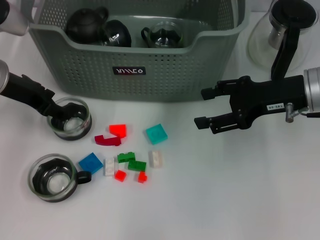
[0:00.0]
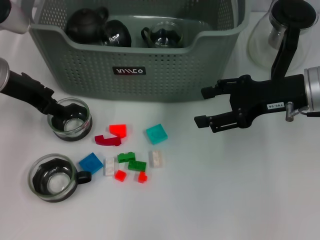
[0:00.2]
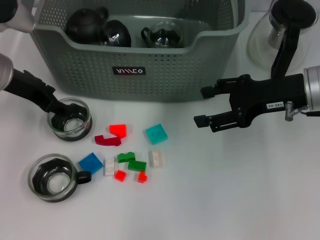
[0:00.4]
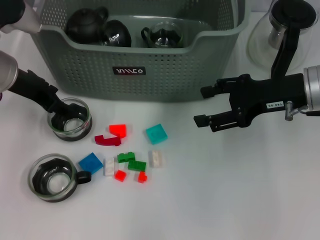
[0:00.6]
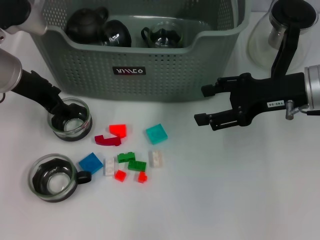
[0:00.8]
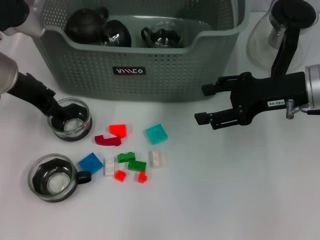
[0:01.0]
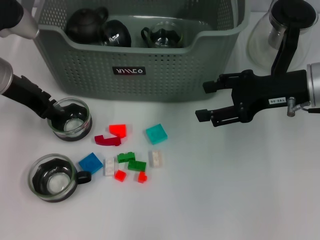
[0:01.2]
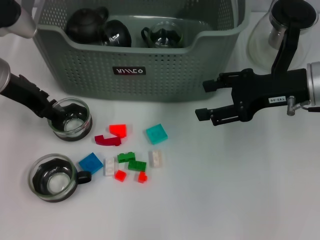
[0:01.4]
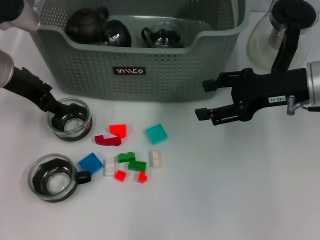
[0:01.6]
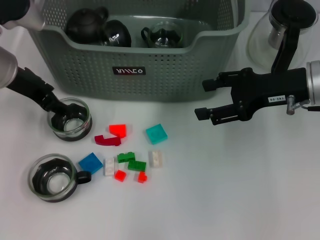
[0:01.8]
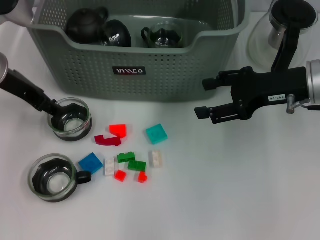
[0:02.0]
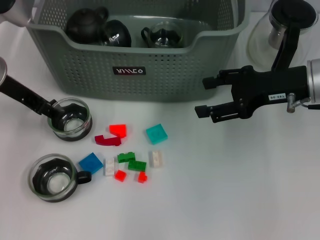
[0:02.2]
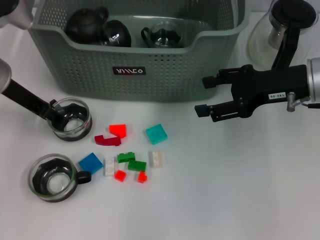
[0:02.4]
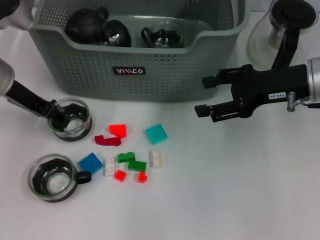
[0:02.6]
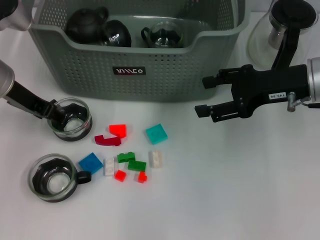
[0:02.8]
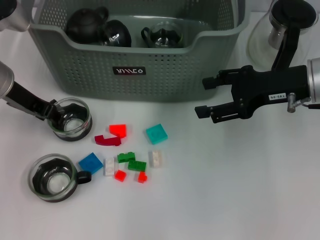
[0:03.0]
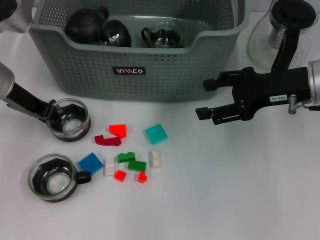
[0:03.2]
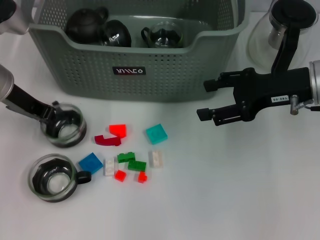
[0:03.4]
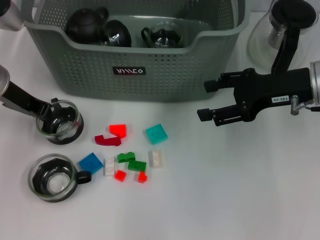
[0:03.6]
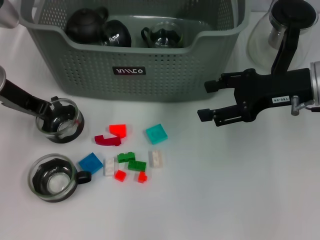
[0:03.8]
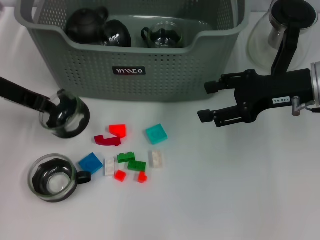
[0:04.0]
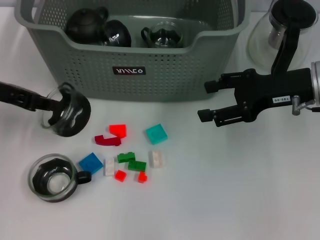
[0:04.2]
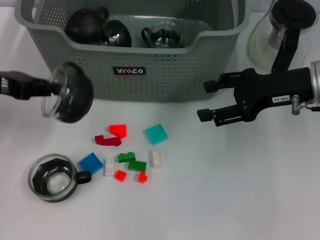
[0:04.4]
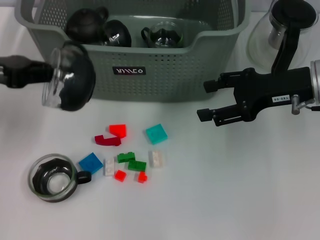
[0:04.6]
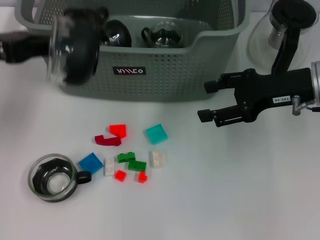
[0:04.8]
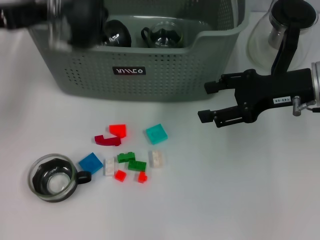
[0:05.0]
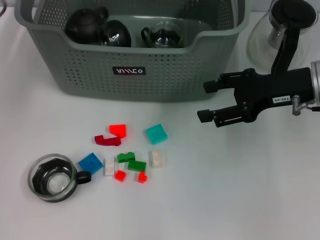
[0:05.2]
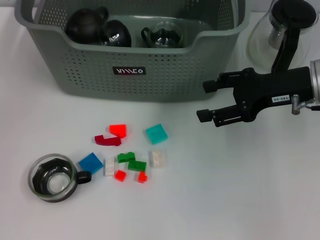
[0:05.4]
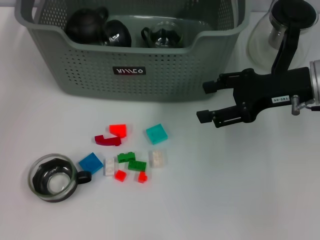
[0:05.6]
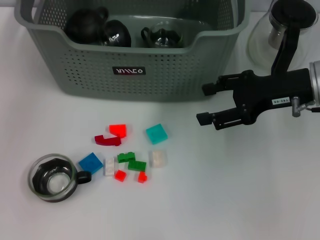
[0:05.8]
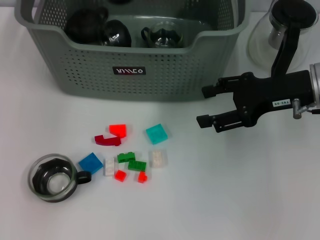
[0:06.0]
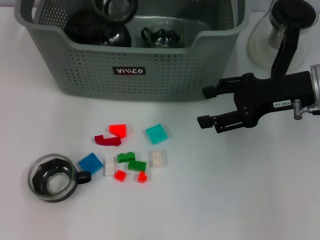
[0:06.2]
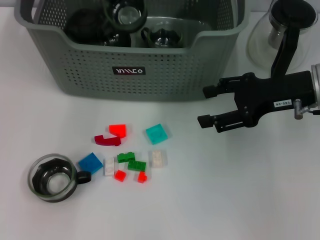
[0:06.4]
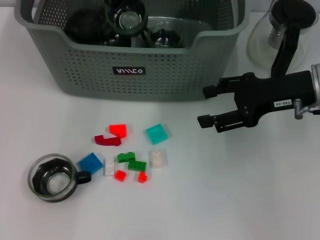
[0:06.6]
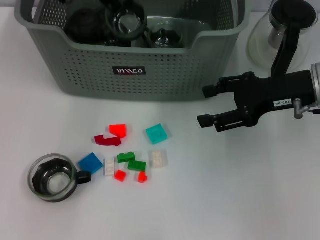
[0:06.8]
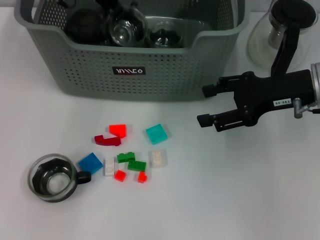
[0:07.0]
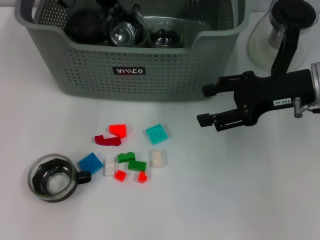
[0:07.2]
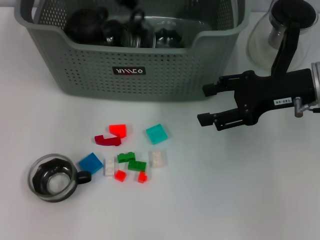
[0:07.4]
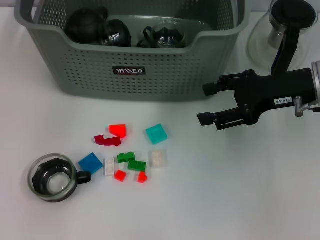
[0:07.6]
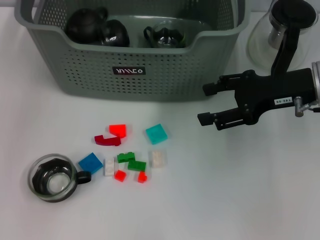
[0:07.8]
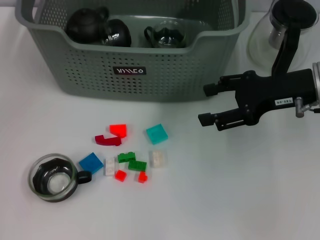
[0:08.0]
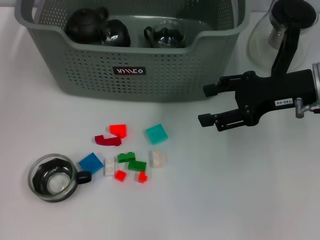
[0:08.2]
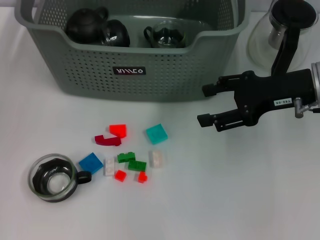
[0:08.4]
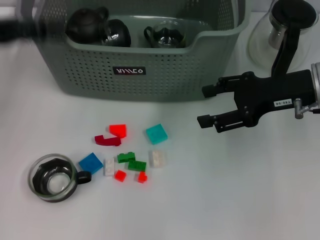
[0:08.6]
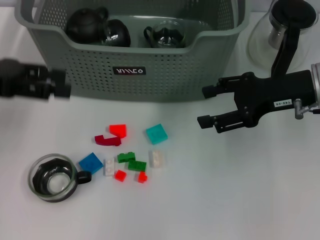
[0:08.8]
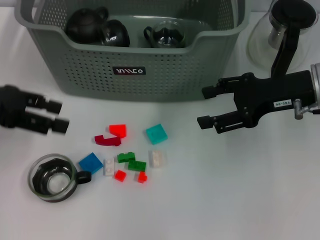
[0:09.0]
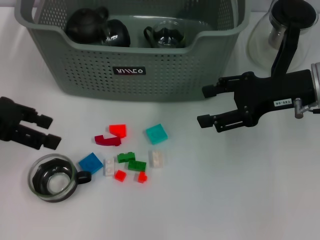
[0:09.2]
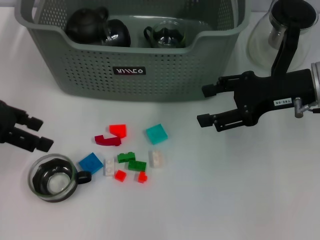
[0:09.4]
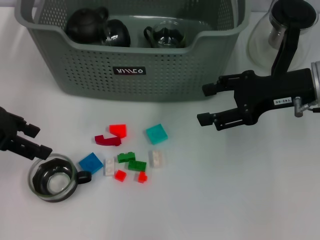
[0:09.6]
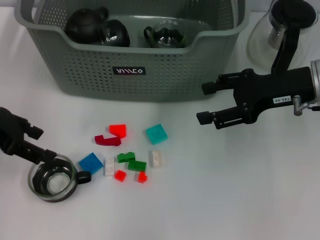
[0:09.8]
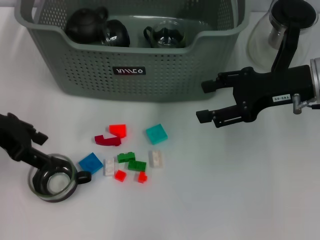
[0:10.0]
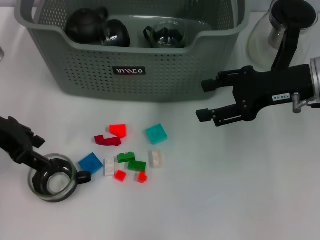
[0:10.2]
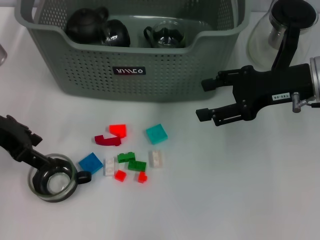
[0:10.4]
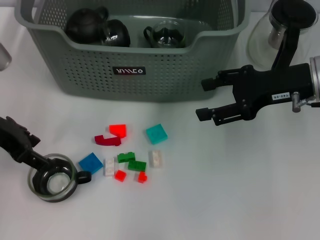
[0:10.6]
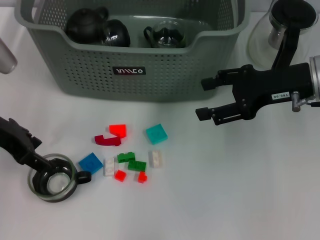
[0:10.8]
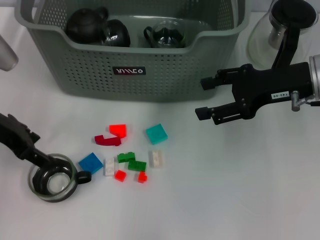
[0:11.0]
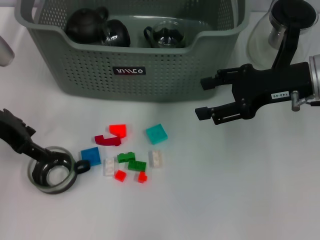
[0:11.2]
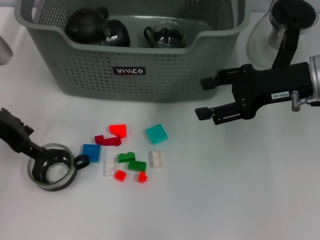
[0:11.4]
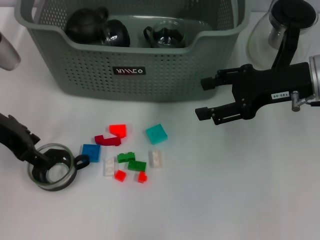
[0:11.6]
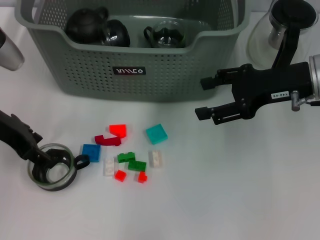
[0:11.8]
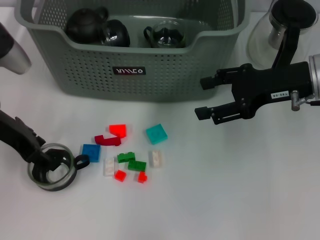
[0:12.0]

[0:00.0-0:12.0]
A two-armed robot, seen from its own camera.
Task of the whole recording: pick up the teacup on the table and place it into the storage bin, pick up the block on the table and place it into the storage bin.
Step, 0:00.0 to 0:03.2: Grasp the cup with left gripper.
Step, 0:03.4 to 0:07.4: Place the cup in the storage box with left gripper.
0:00.0 to 0:01.6: The grippers move only a little.
0:03.0 to 0:04.4: The left gripper goes about 5 cm to the left, and closes its fingers.
0:04.4 to 0:06.0: The left gripper heads forward, to the right and upward, covering approximately 25 cm.
0:06.0 to 0:07.6: The left gripper opens its fingers.
0:07.6 to 0:09.0: The left gripper heads backward, to the left and downward, covering roughly 25 cm.
0:10.4 to 0:12.0: The grippers stay close to where they were, moving slightly.

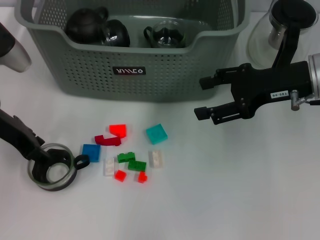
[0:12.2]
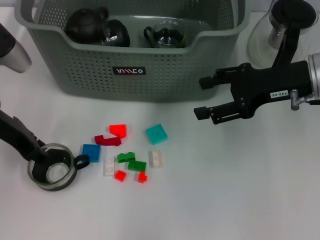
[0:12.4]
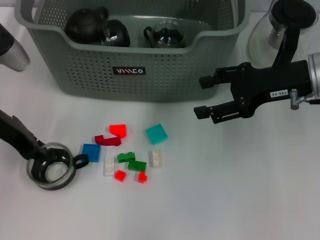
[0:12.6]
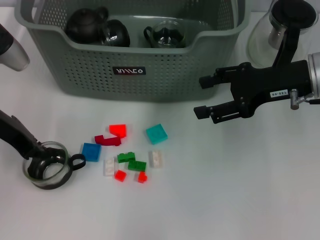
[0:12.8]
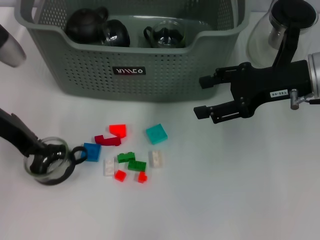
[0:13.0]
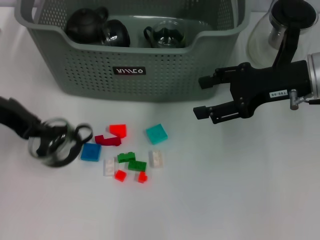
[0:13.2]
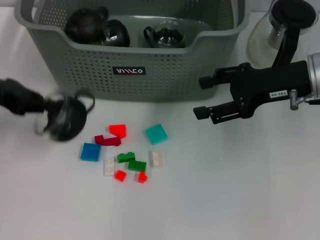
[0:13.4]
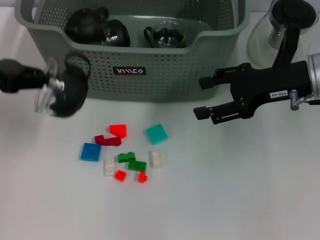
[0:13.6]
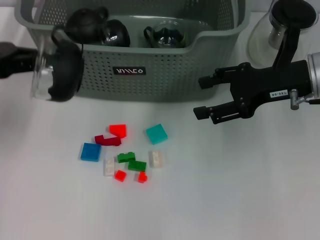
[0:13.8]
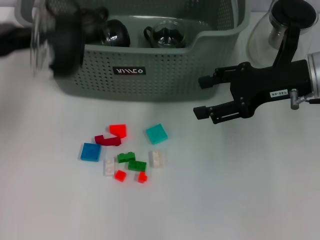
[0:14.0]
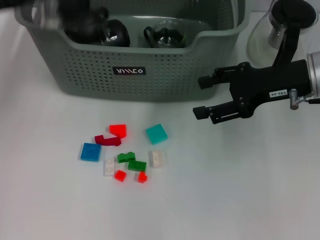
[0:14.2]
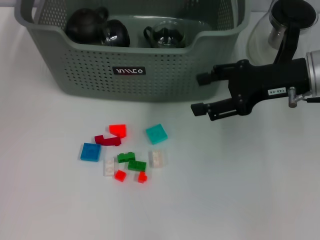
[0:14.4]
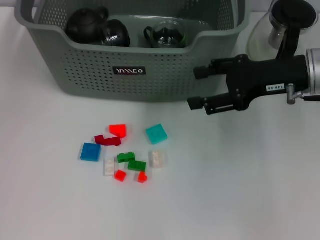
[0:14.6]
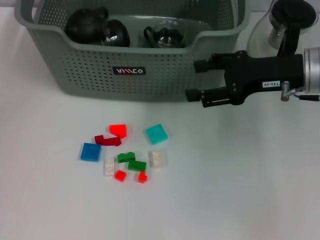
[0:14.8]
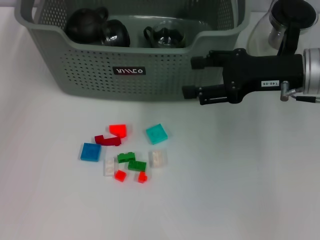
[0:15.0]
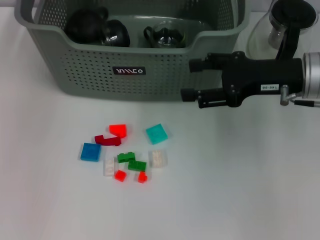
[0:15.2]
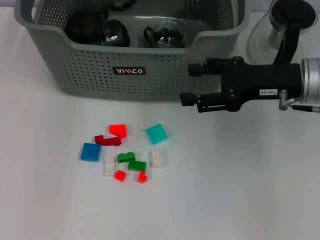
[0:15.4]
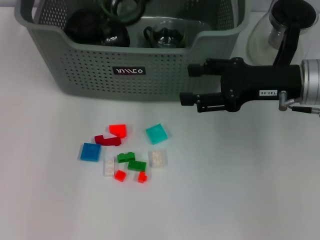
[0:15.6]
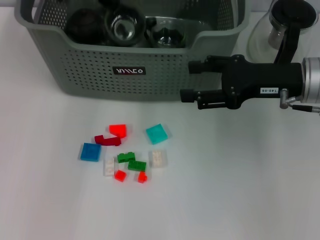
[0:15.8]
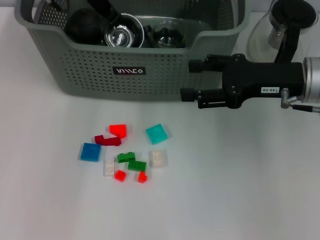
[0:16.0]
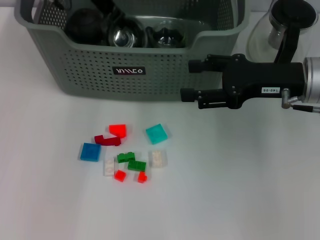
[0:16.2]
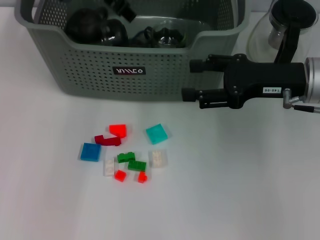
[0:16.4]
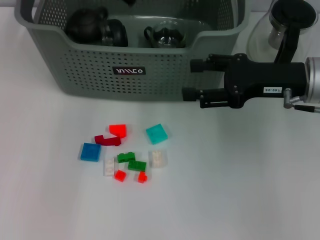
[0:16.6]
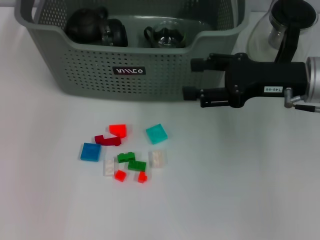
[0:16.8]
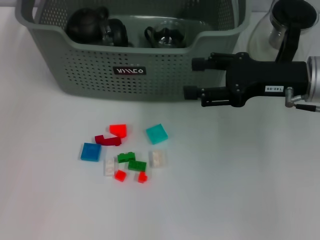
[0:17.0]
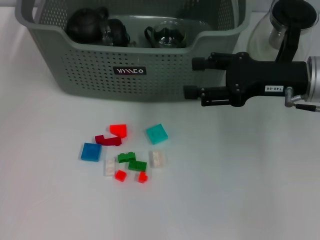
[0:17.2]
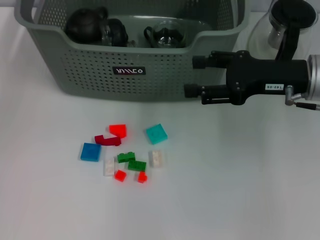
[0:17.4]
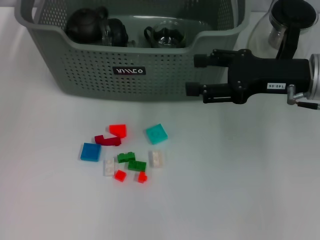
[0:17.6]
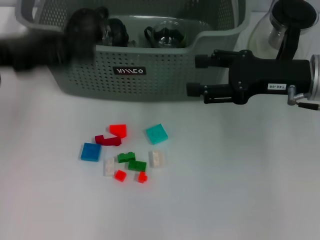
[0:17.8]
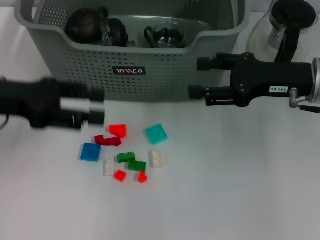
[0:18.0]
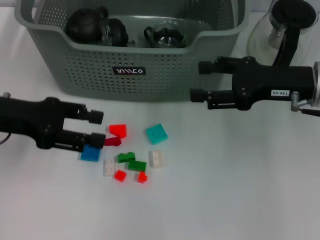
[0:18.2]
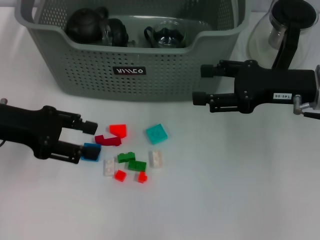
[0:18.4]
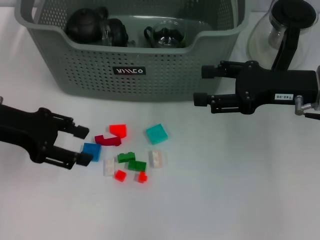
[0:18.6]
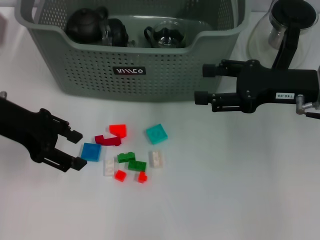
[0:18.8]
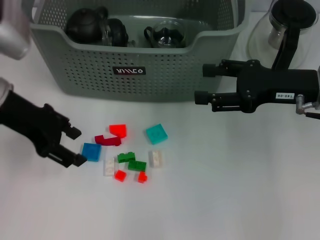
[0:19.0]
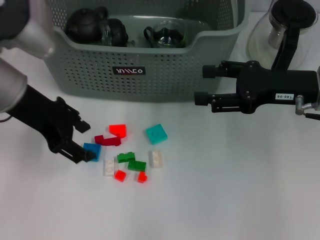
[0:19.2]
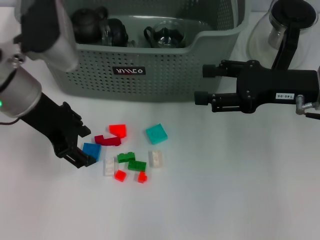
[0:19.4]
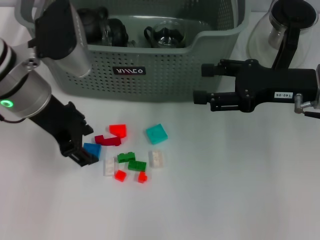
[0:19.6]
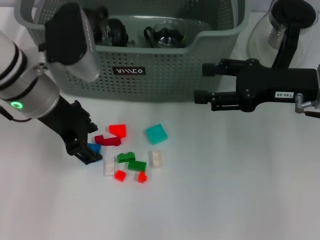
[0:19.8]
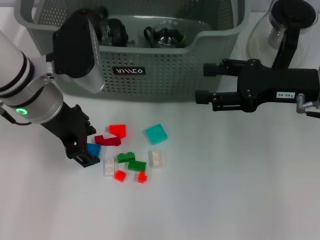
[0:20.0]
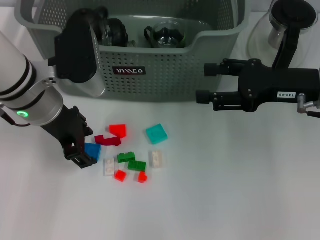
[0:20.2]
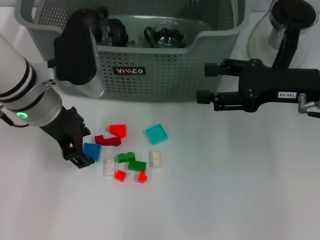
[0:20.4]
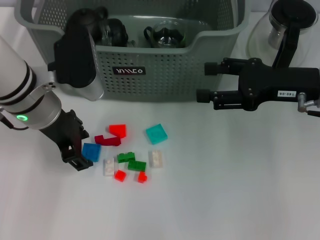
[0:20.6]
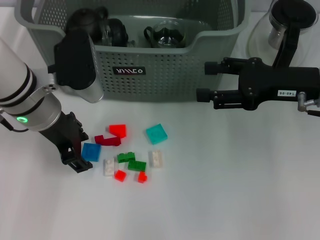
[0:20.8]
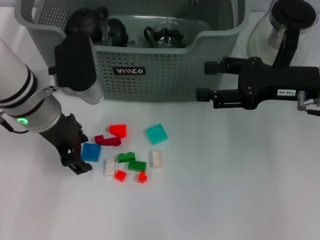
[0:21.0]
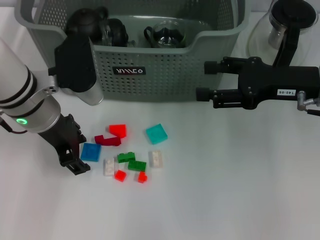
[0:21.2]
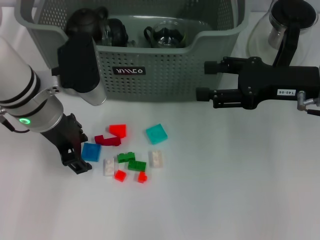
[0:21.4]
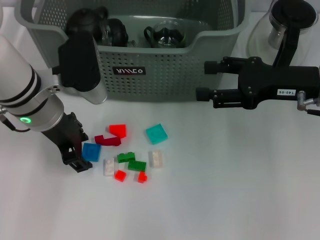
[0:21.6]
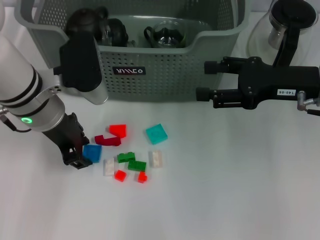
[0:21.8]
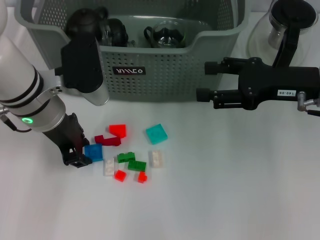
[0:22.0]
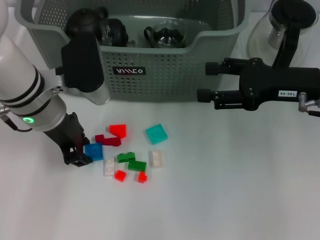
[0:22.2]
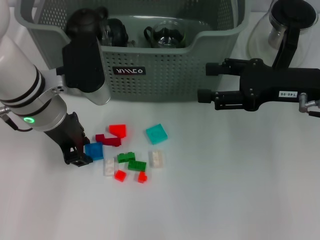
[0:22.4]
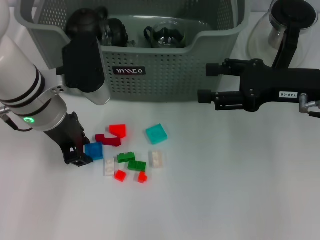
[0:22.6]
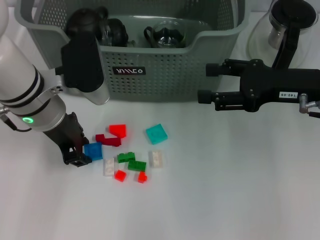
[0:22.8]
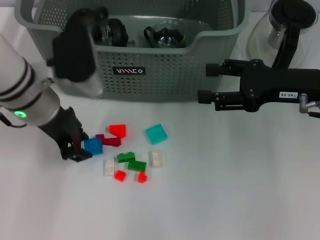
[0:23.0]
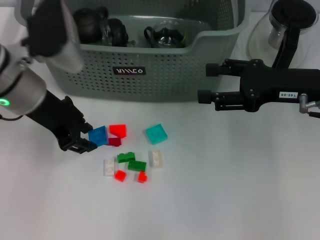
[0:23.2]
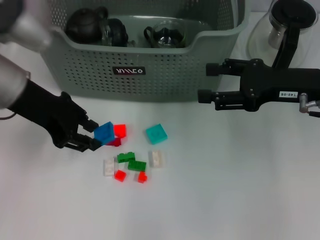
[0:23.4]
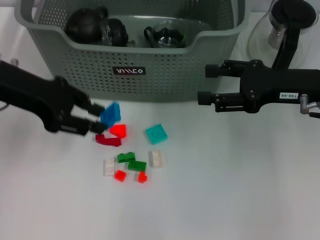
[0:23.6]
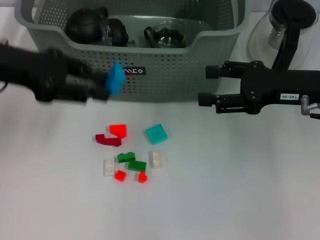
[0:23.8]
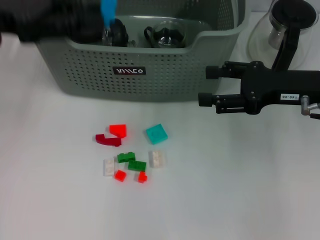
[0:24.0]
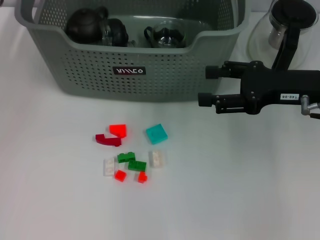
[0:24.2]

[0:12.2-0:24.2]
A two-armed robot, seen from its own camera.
Task of the whole recording: pick up the teacup on the table and place it into the storage bin, pick up the block on the table and place it into the storage bin.
Step, 0:13.0 to 0:16.4: Place the cup in the storage box with left gripper.
Step, 0:16.6 to 0:22.2: Grasp the dark blue block with left gripper.
0:12.2 to 0:13.8: The left gripper moves to the left, approximately 5 cm, and closes.
0:13.8 to 0:15.2: The left gripper heads forward, to the right and upward, covering about 20 cm.
0:16.6 to 0:18.2: The left gripper moves backward, to the left and downward, approximately 25 cm.
0:18.2 to 0:19.8: The left gripper is displaced to the right by some 10 cm.
0:19.8 to 0:21.2: The grippers make only small movements.
0:21.2 to 0:22.6: Both grippers stay about where they are.
0:22.6 to 0:24.2: The left gripper is displaced upward and to the left by some 15 cm.
